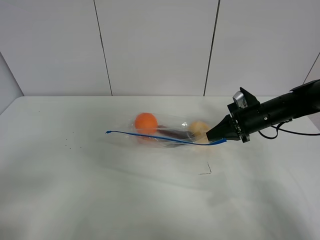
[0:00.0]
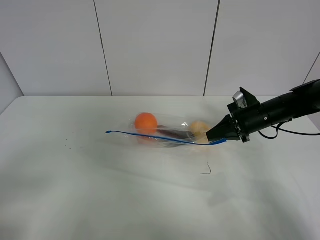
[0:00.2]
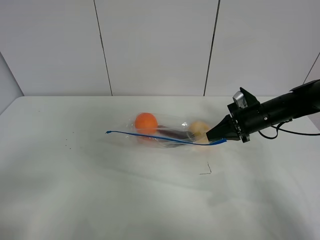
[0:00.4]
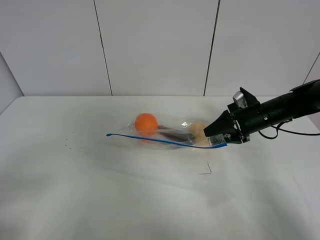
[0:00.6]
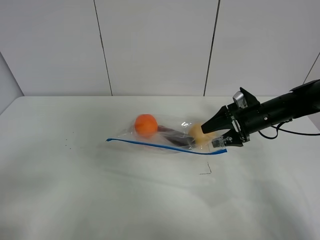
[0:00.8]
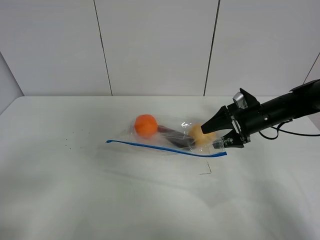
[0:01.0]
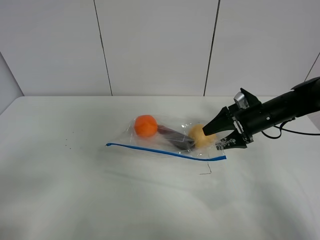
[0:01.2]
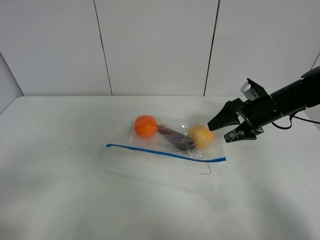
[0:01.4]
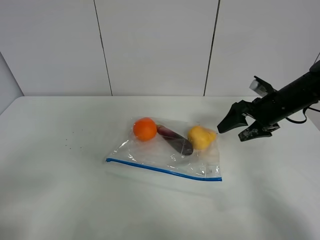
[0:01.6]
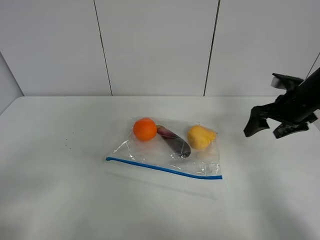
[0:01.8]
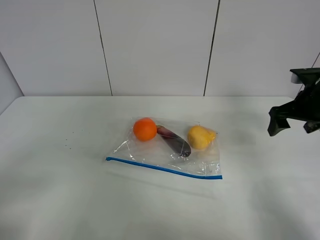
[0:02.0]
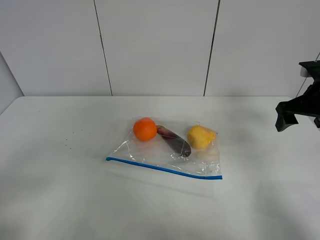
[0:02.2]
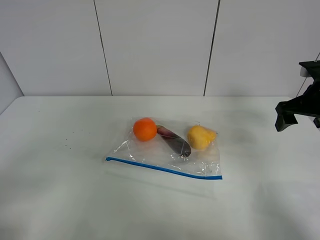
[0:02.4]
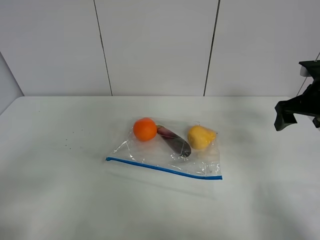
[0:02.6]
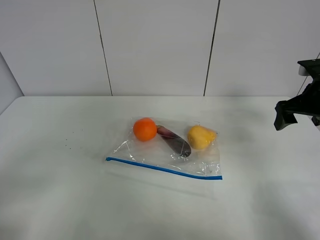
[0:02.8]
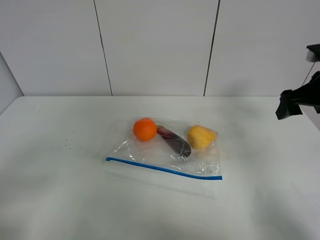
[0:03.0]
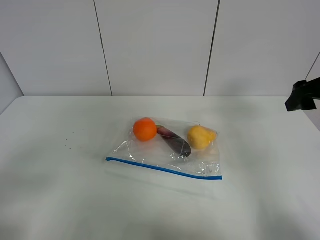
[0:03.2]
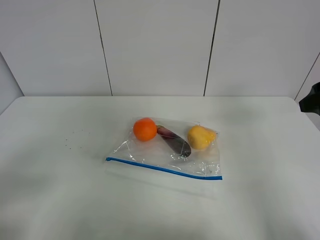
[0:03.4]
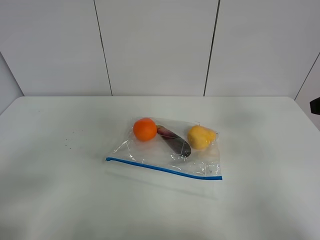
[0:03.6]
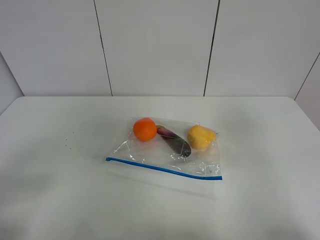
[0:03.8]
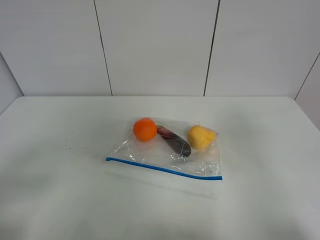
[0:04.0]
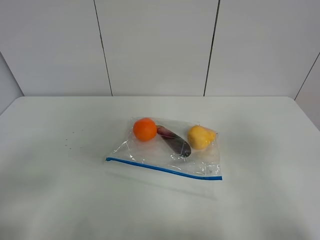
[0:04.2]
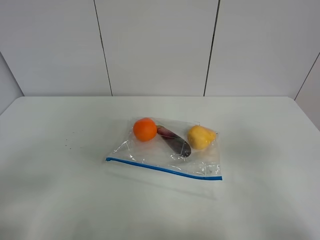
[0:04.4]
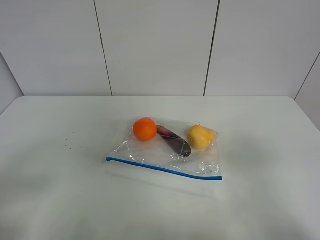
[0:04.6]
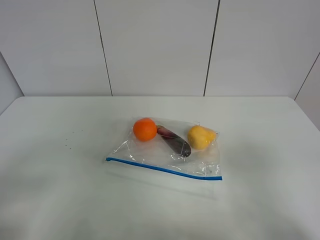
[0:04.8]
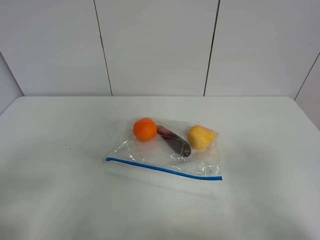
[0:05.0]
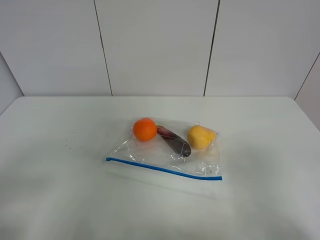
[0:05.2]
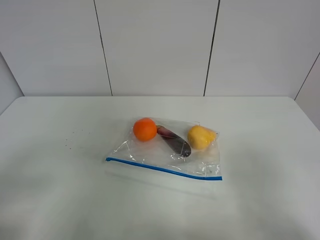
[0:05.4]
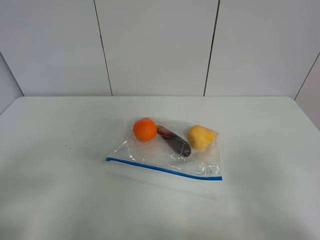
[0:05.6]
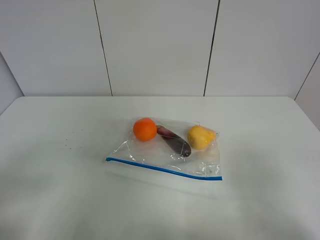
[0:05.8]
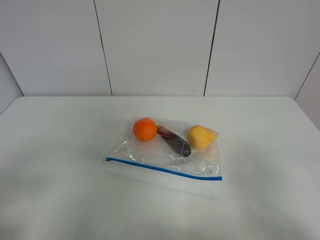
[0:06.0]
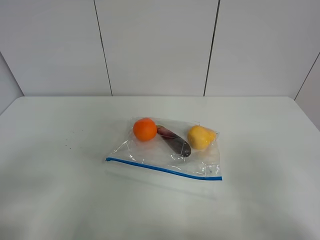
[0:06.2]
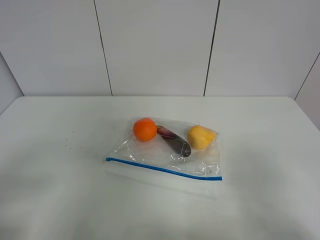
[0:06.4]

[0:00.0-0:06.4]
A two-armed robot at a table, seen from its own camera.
0.0 to 1.6 s: The right gripper moves some 5 cm, and opens up.
1.6 to 3.2 s: The right gripper travels upward and backward by about 15 cm.
3.2 to 4.8 s: The right gripper is displaced backward by roughly 30 cm.

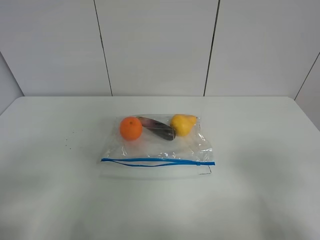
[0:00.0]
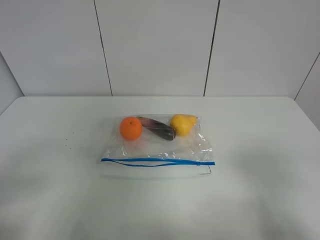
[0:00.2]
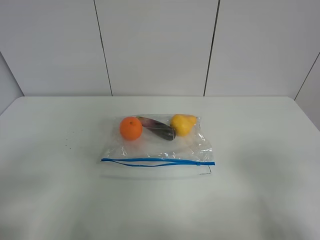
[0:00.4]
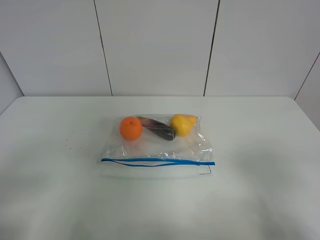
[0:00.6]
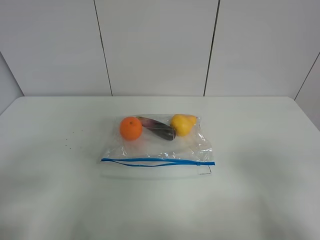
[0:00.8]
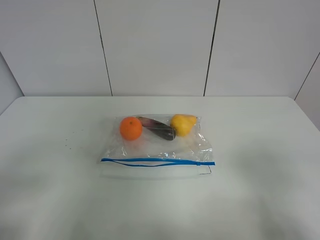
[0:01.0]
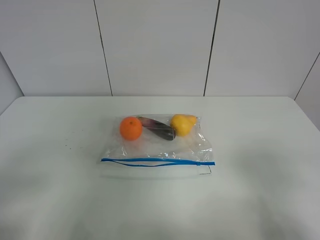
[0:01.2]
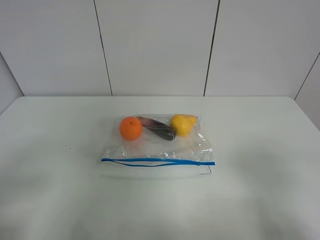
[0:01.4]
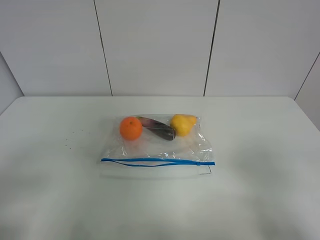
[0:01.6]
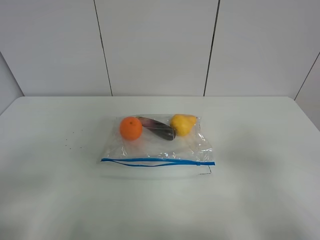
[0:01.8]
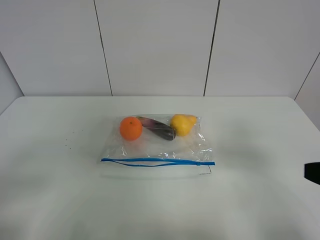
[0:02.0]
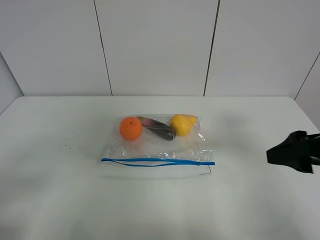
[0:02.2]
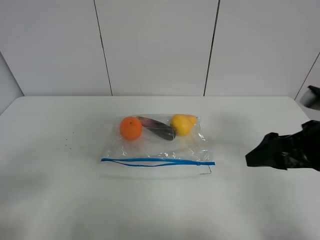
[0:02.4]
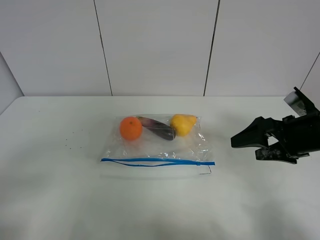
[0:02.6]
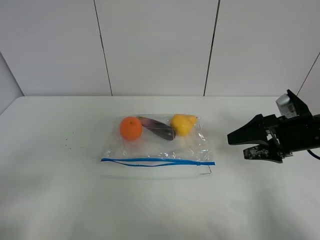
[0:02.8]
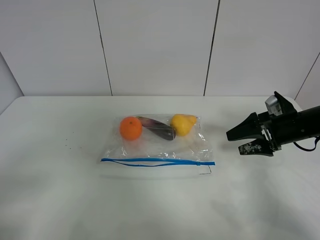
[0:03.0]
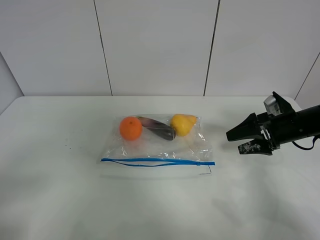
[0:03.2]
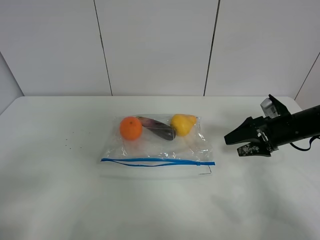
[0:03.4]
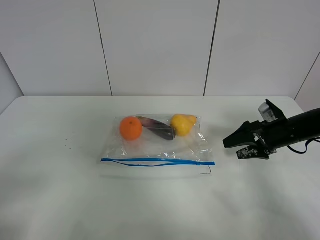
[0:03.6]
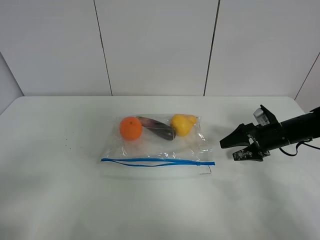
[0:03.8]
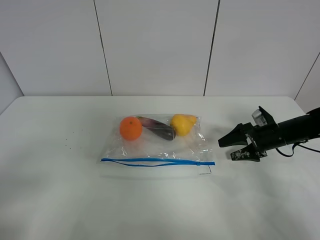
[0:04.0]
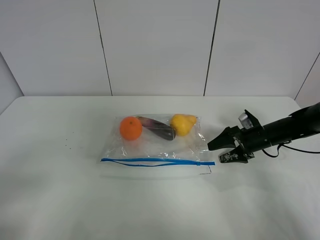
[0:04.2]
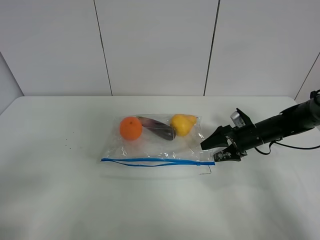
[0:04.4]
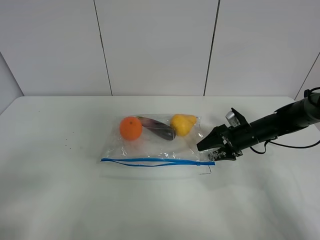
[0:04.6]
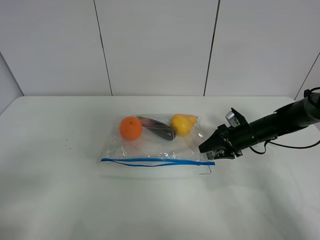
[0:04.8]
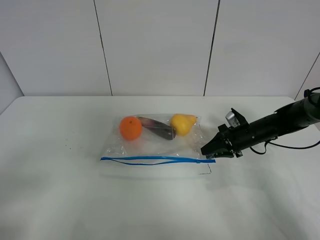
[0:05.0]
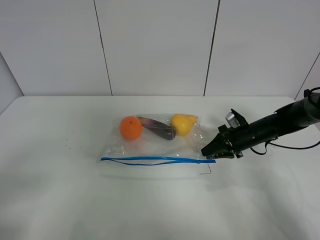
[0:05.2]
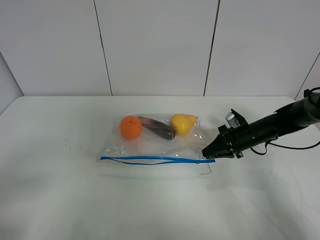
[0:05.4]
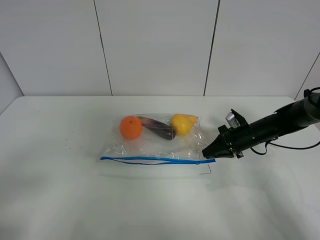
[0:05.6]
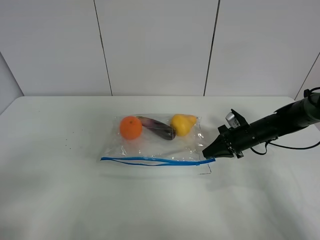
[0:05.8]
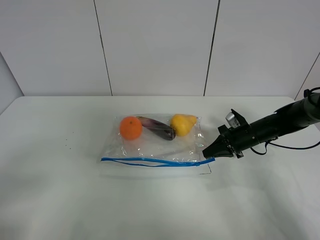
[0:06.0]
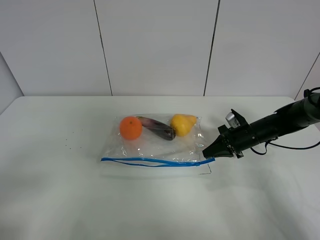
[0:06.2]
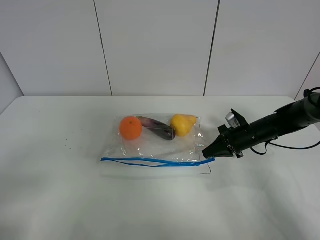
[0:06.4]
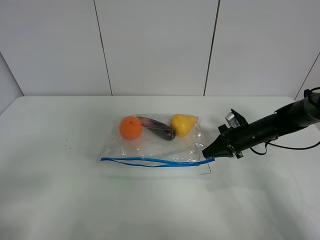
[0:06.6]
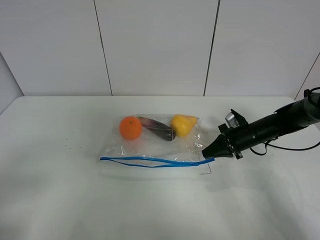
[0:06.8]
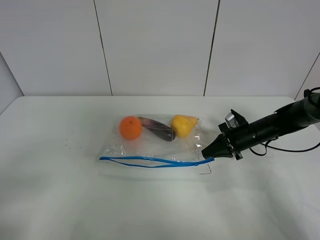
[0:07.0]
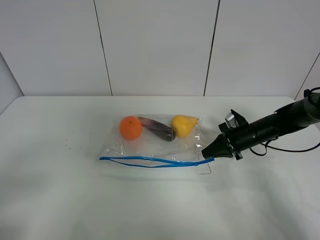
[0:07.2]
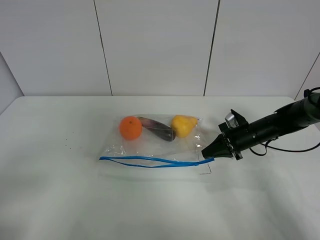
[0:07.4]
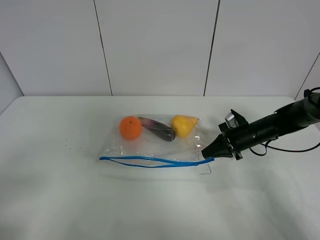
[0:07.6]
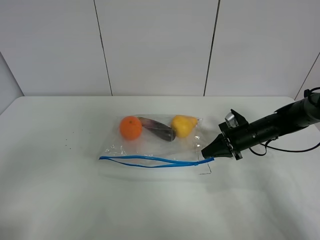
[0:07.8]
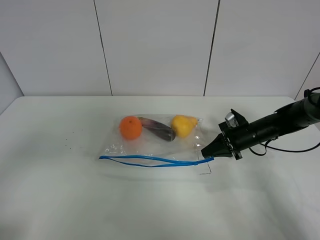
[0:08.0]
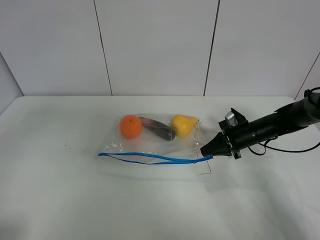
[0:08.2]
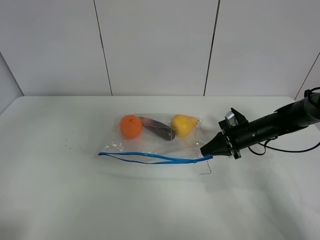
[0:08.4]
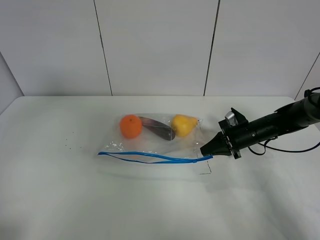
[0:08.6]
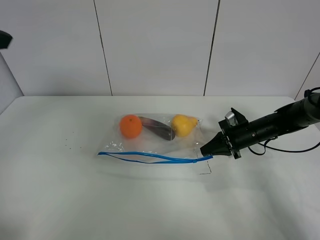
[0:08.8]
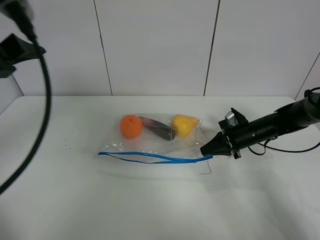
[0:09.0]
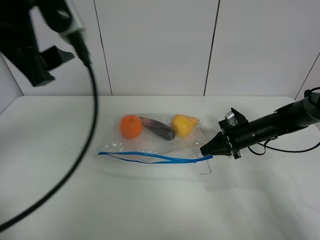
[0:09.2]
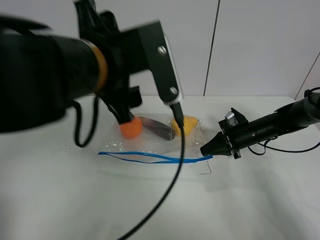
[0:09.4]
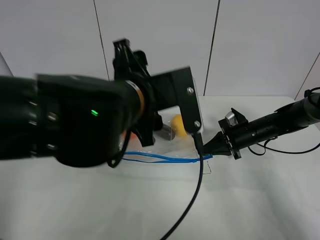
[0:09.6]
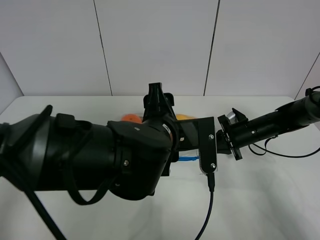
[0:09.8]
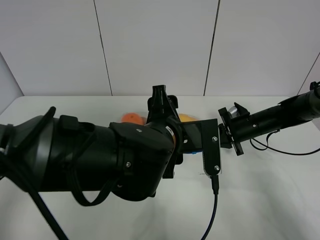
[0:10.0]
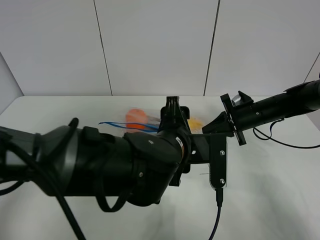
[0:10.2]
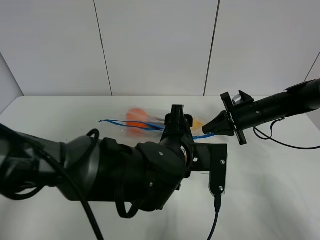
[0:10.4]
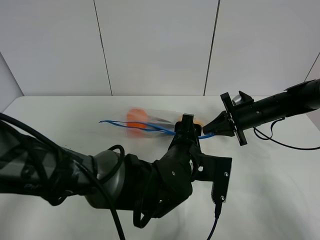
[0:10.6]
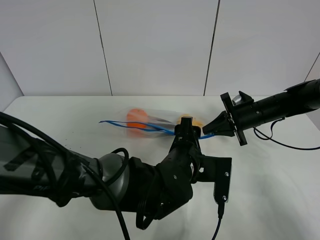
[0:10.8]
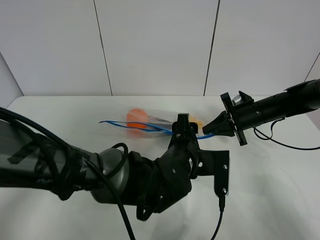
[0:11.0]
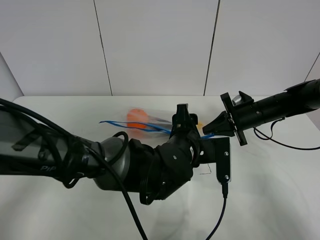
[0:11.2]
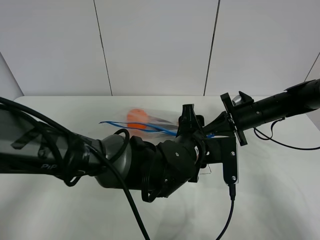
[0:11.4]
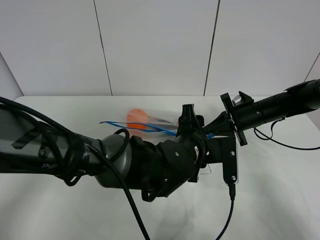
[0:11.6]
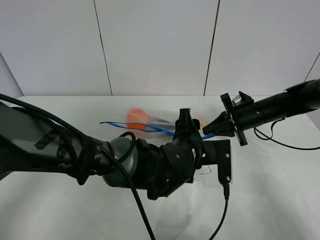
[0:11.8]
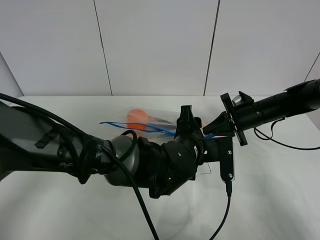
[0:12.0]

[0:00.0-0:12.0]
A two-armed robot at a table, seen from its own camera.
Step, 0.0 to 5.8 s: Grasp the fruit bag with right gripper.
1.6 to 3.0 s: The right gripper goes roughly 30 cm forward and downward.
3.0 to 4.4 s: The right gripper goes roughly 10 cm downward and forward.
4.4 to 6.0 s: The right gripper closes its fingers.
6.0 to 7.6 s: The two grippers keep their place.
7.6 to 9.0 s: The left gripper shifts about 25 cm forward, upward and to the right.
9.0 to 10.4 s: The right gripper moves upward, about 5 cm; the left gripper goes about 35 cm downward and to the right.
10.4 to 12.0 s: The left gripper ends up approximately 5 cm from where it was.

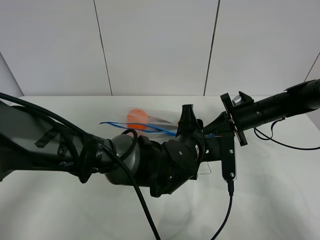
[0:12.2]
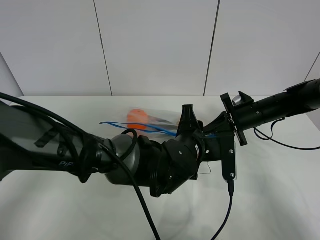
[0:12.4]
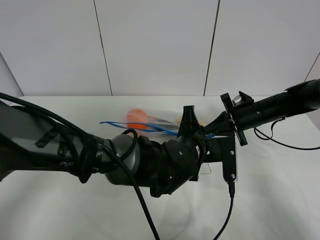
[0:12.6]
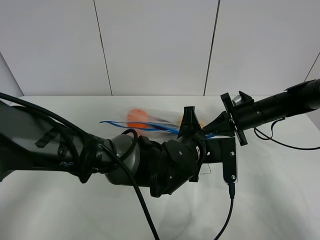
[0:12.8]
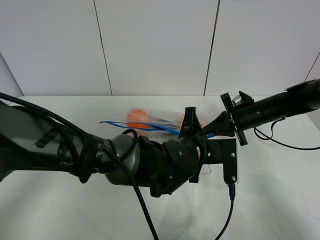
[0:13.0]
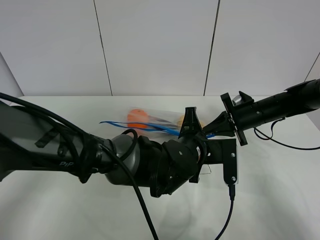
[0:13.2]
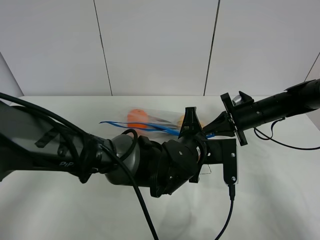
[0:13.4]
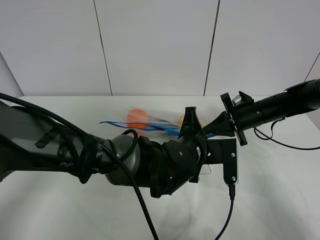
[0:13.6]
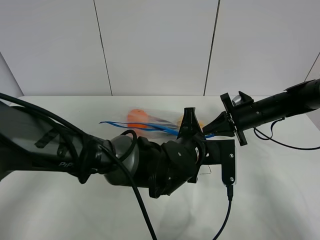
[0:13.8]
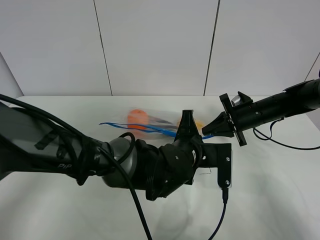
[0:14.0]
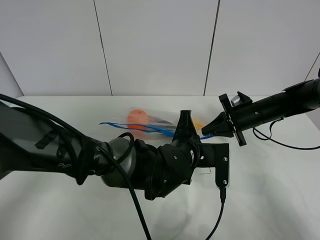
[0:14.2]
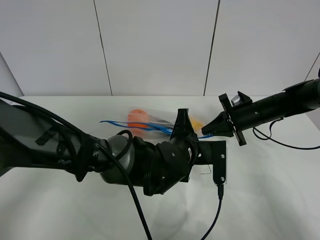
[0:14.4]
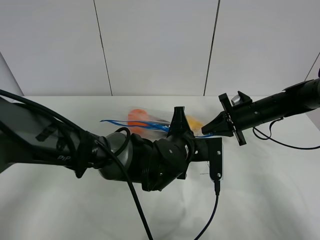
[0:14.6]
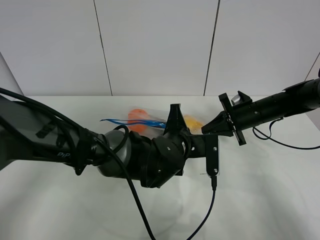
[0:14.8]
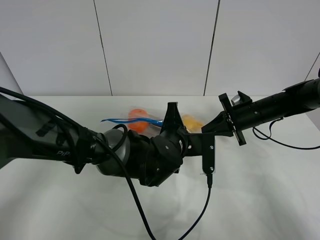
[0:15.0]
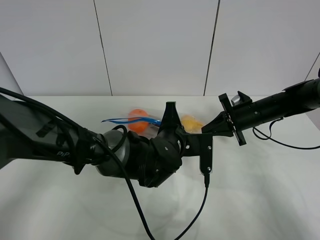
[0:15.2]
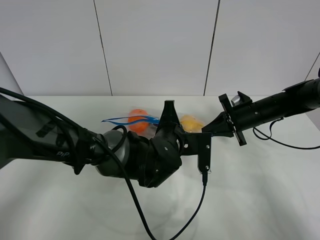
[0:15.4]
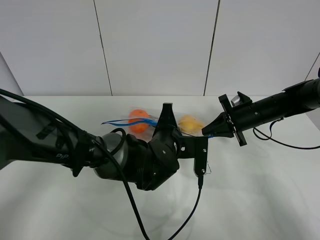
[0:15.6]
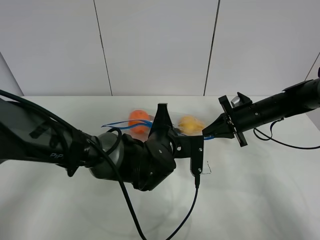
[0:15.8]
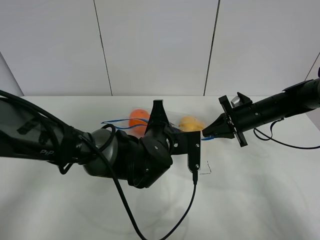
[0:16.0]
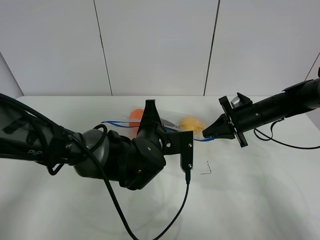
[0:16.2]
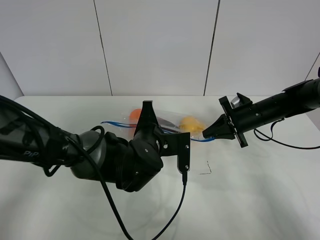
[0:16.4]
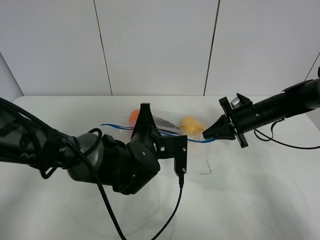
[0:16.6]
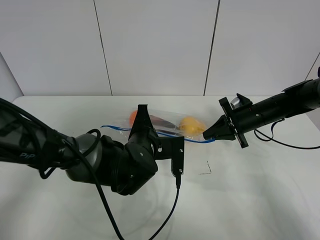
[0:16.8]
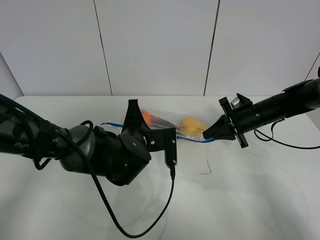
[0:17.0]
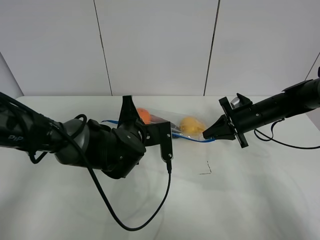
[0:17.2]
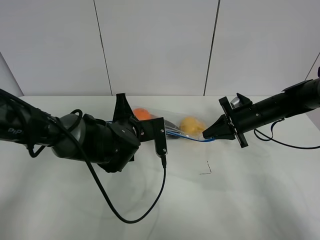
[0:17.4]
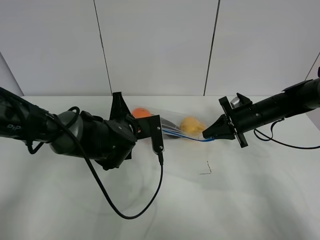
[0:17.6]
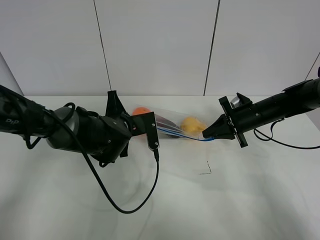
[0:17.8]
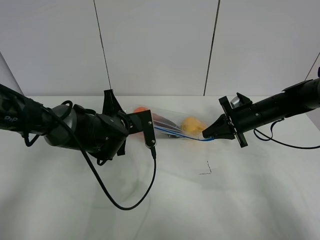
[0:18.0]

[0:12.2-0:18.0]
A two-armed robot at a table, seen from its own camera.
12.2 to 13.6 s: The left gripper closes its fingers.
13.6 to 15.0 s: There are only small adjustments of the grippers.
15.0 to 16.6 s: The left gripper is displaced to the left by roughly 5 cm.
16.6 to 18.0 s: The left gripper travels to the left and forward by approximately 10 cm.
